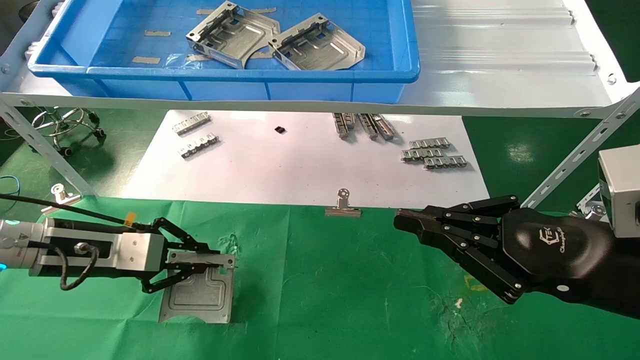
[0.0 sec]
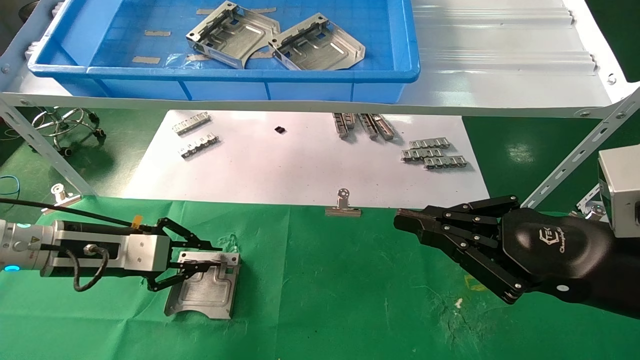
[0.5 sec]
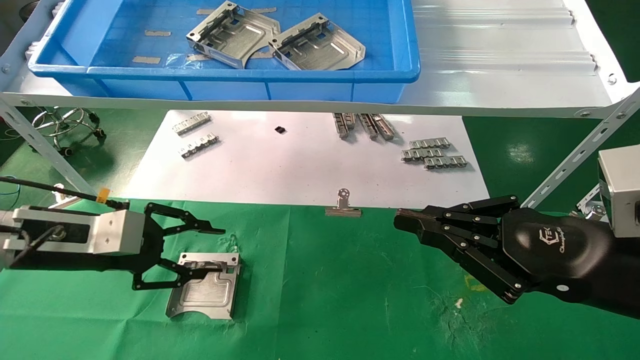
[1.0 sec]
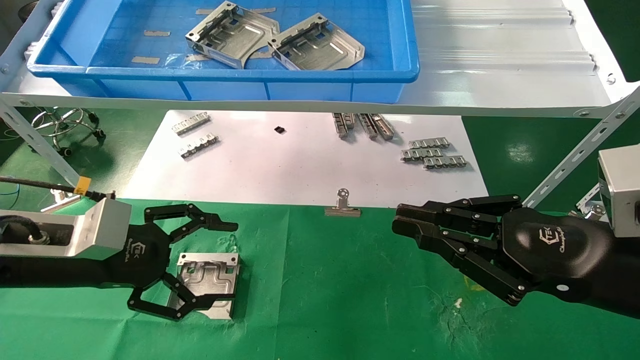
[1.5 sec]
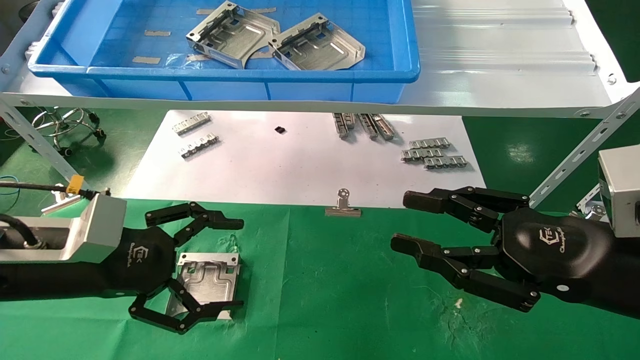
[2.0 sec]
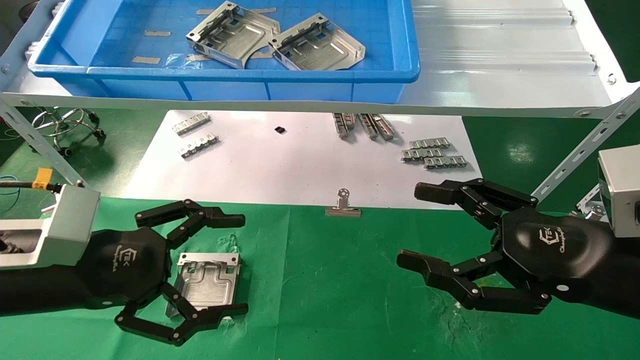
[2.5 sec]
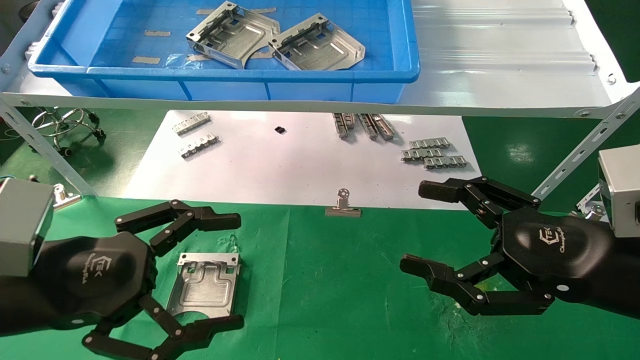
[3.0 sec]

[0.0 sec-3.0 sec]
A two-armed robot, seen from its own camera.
Task of the whole recording: use the mechanical arm to pick up the parts and place them on the table.
0.0 sec to 1.5 sec: The left gripper heads backward, covering about 5 cm, and opens.
1.5 sec to 3.0 sec: The right gripper opens; the left gripper is displaced backward by about 10 cm.
